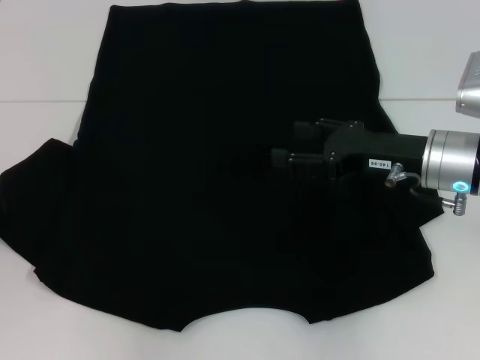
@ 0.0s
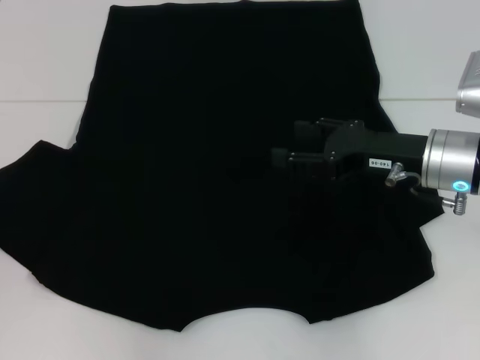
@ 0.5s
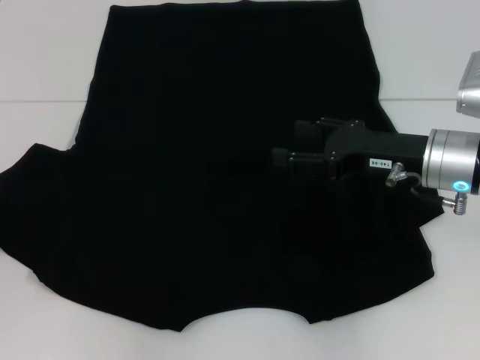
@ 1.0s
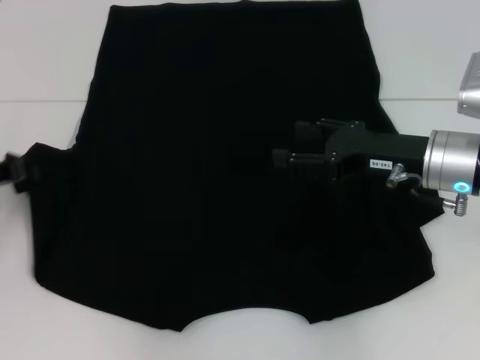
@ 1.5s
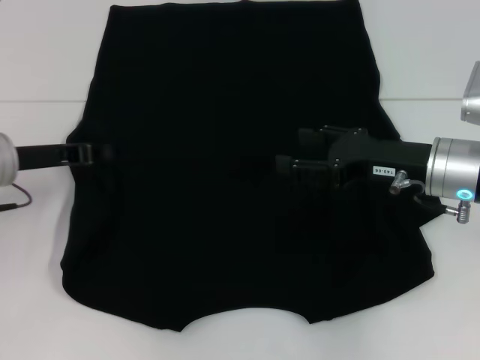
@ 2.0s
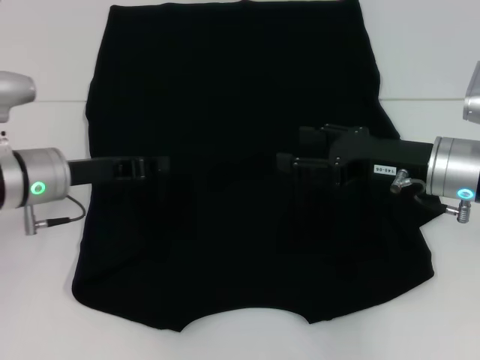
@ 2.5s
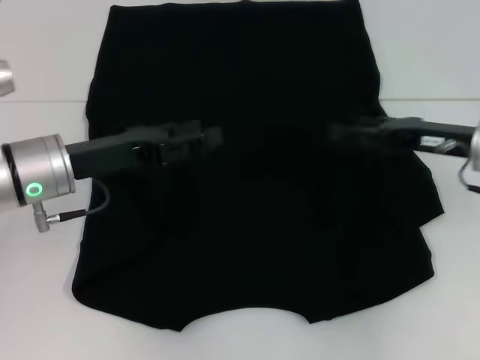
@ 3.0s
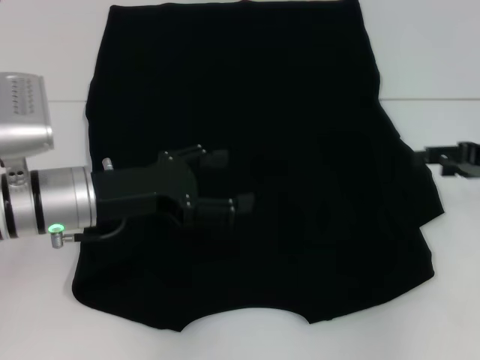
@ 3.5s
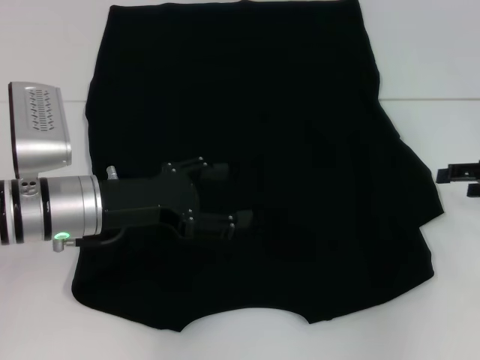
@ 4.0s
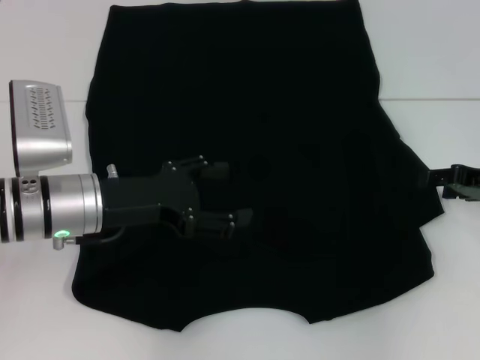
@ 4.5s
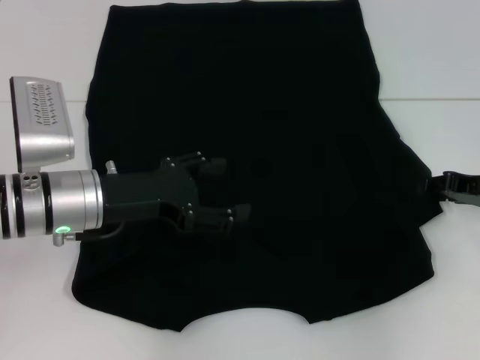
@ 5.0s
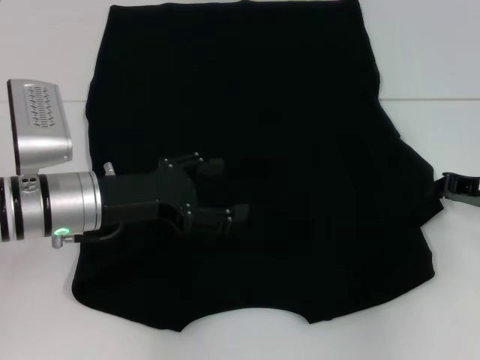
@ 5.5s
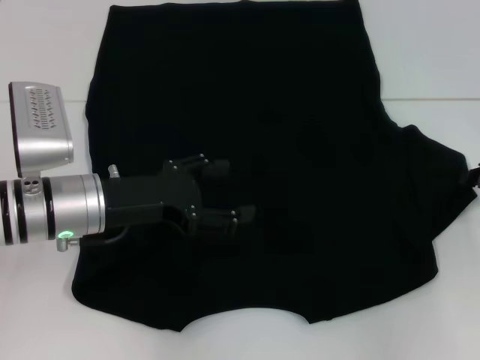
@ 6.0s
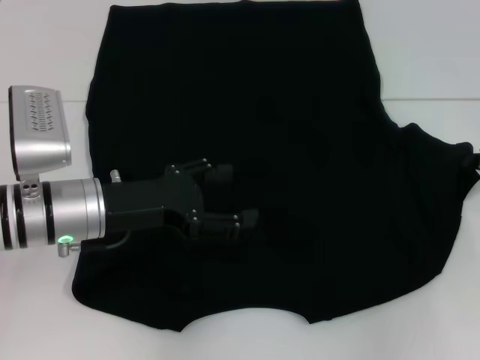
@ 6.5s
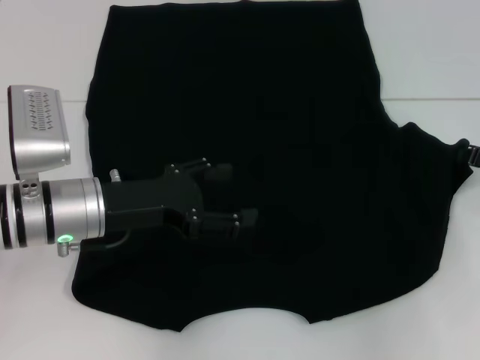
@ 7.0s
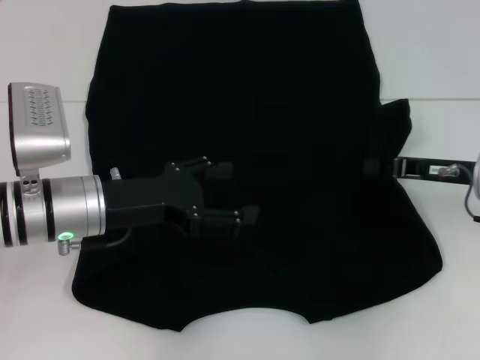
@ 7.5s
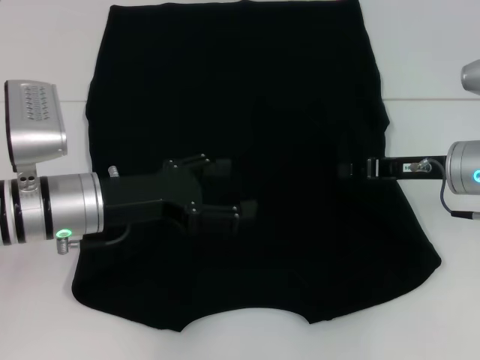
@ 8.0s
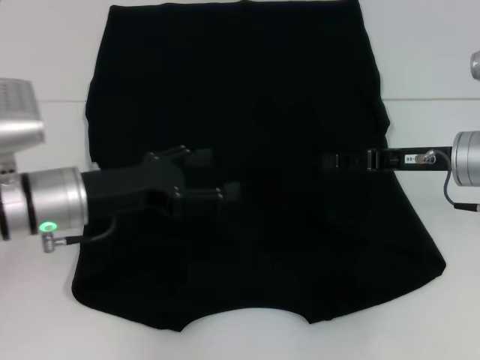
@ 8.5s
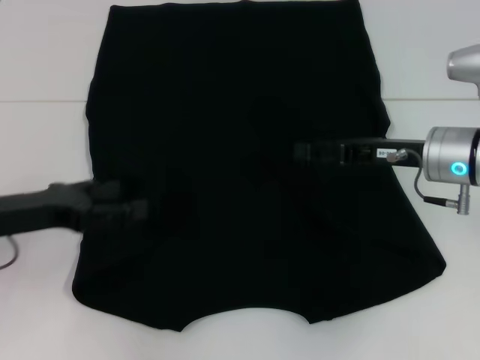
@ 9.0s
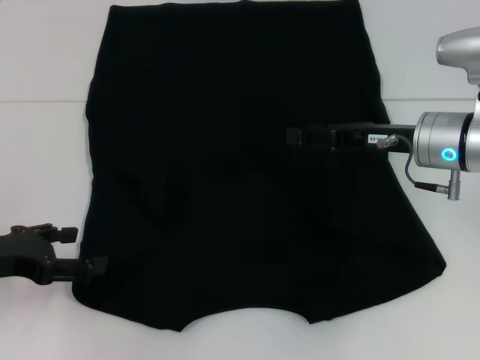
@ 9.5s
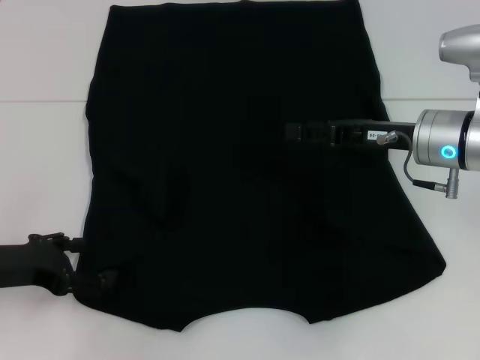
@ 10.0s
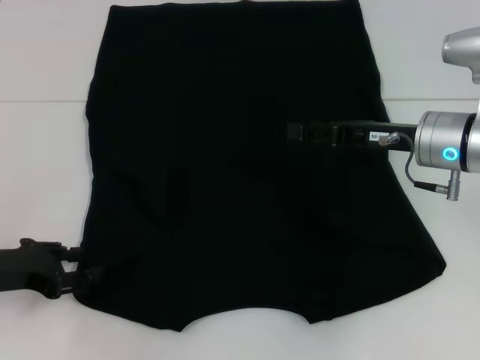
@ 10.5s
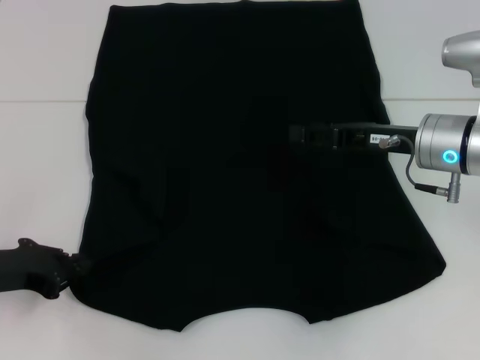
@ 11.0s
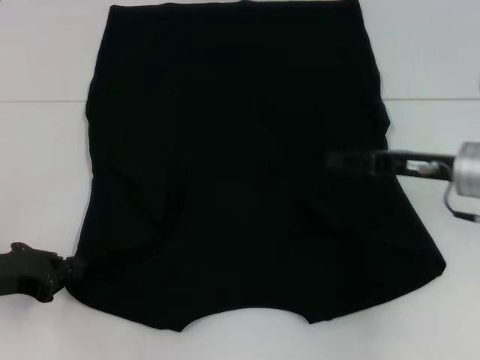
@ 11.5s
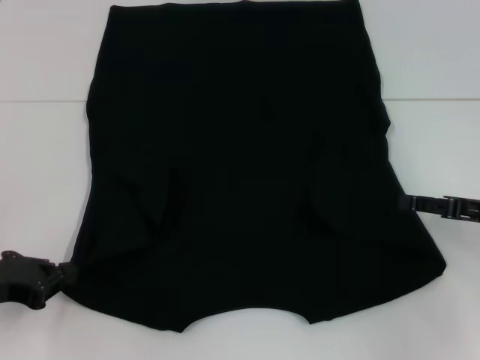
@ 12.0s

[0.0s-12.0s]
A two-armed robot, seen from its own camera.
Step, 0.0s to 2.5s: Fold the bottom left sleeve with your left hand.
Step, 3.0s to 8.5s: Fold the bottom right sleeve with your right hand.
Step, 9.0s to 11.5s: Grab the bottom left corner with your left hand.
0.0s to 2.0s: The left gripper moves to the right, approximately 10 cm.
2.0s to 4.0s: The left gripper is displaced to the right by about 10 cm, and opens. The right gripper moves to the right, some 15 cm.
4.0s to 6.0s: The right gripper closes up.
6.0s to 8.0s: The right gripper heads to the left, covering roughly 10 cm.
8.0s to 10.0s: The left gripper moves to the left, some 10 cm. Meanwhile the right gripper opens.
10.0s to 12.0s: The left gripper closes up. The right gripper shifts roughly 15 cm to the right and backward.

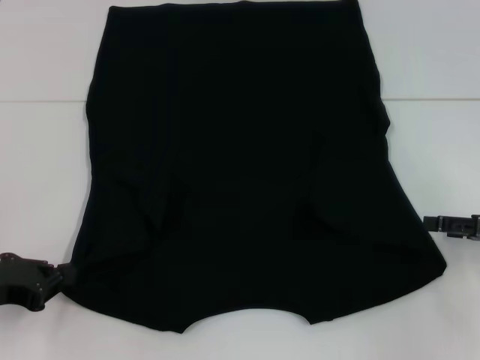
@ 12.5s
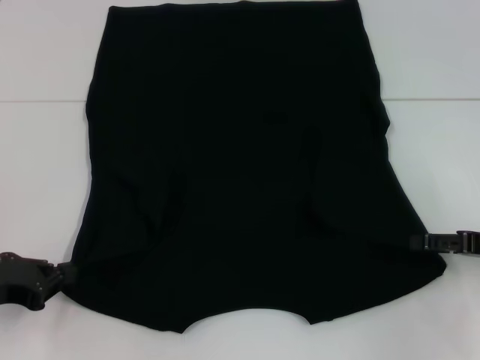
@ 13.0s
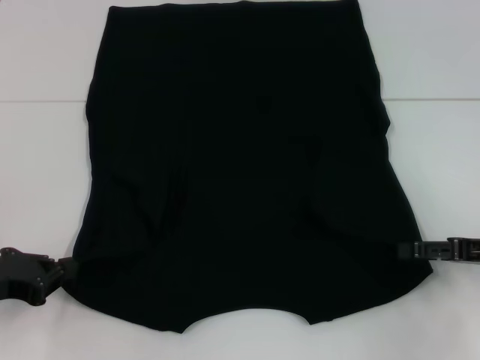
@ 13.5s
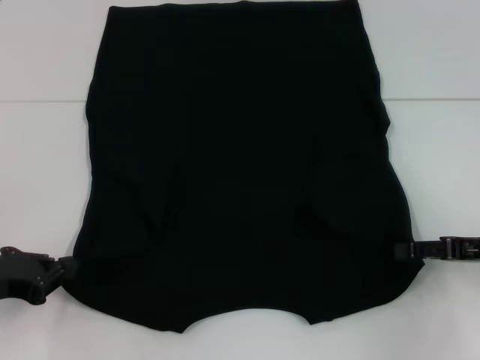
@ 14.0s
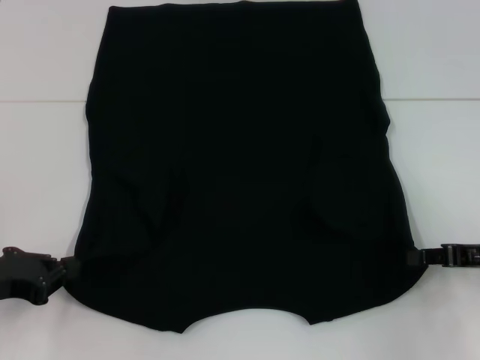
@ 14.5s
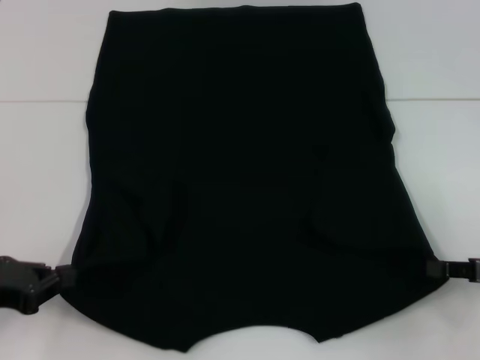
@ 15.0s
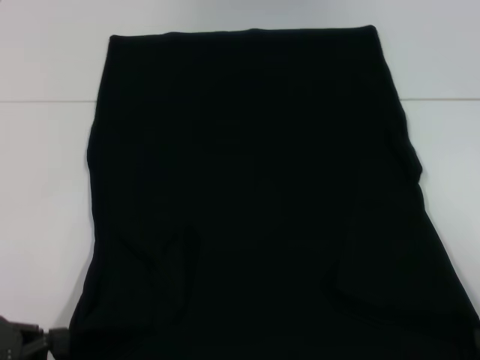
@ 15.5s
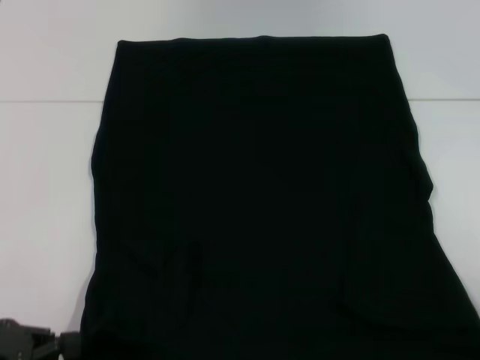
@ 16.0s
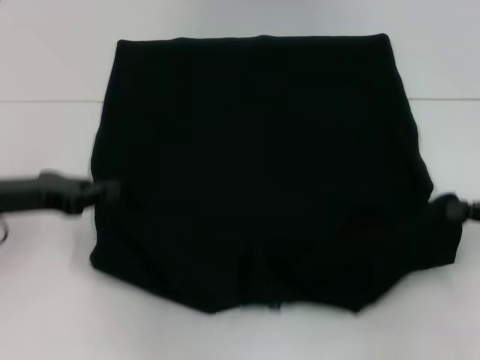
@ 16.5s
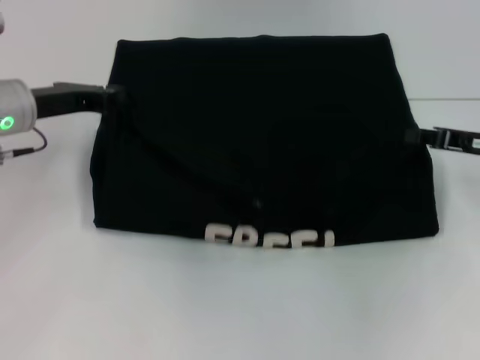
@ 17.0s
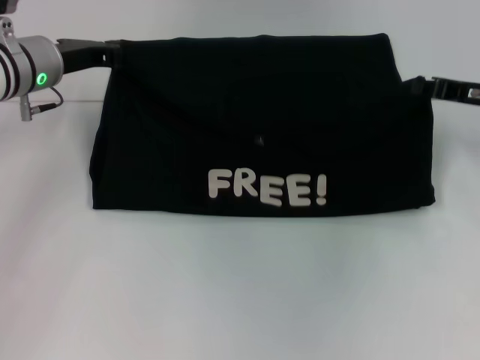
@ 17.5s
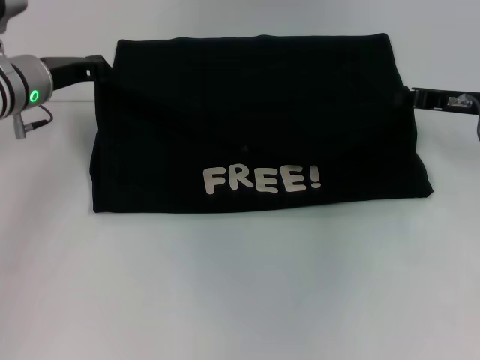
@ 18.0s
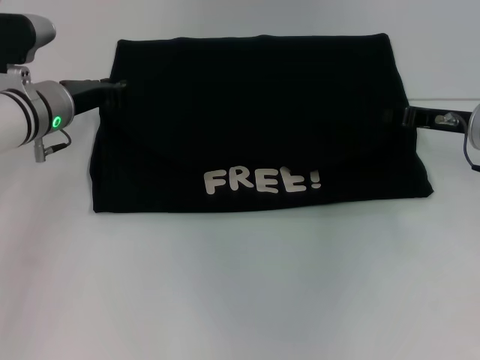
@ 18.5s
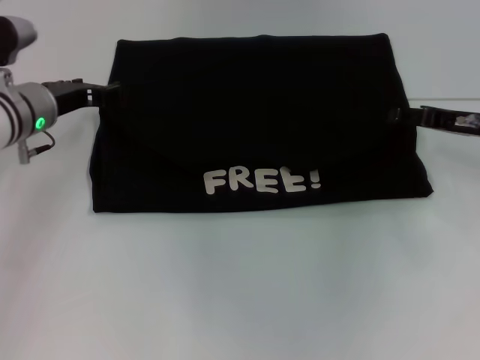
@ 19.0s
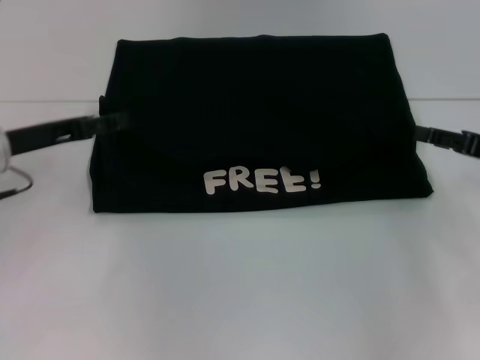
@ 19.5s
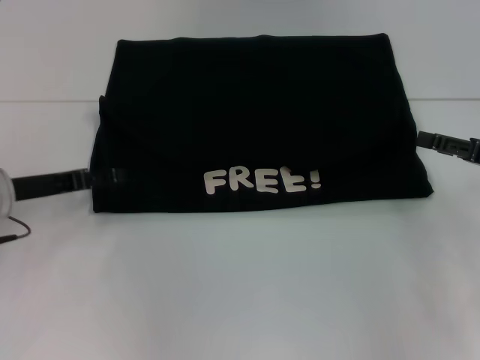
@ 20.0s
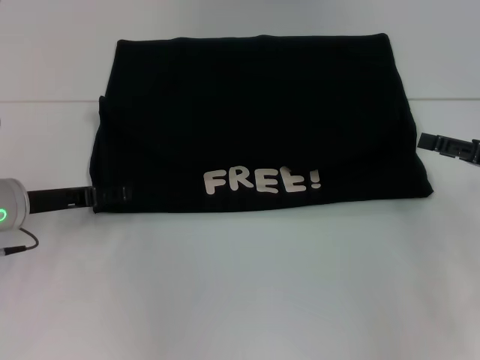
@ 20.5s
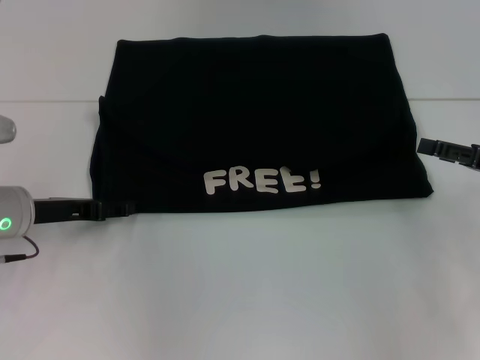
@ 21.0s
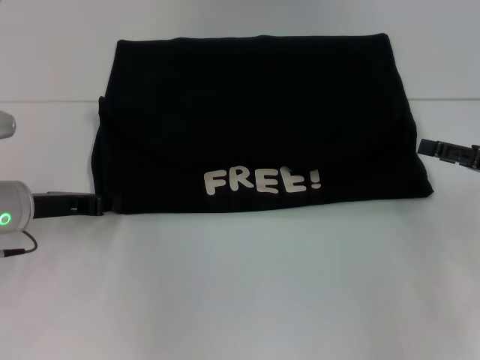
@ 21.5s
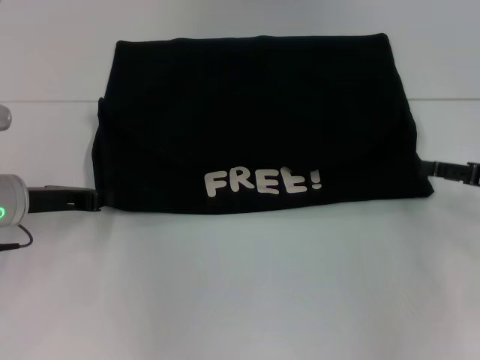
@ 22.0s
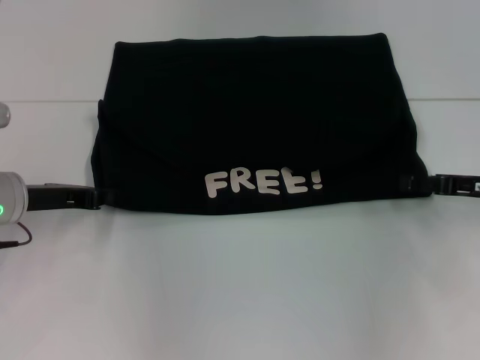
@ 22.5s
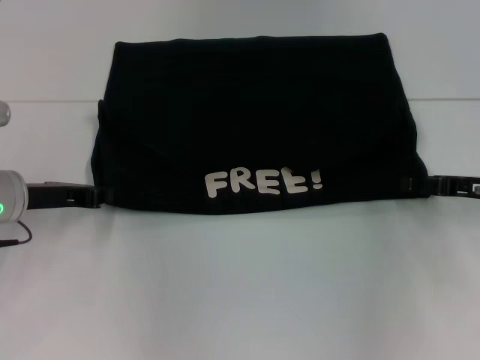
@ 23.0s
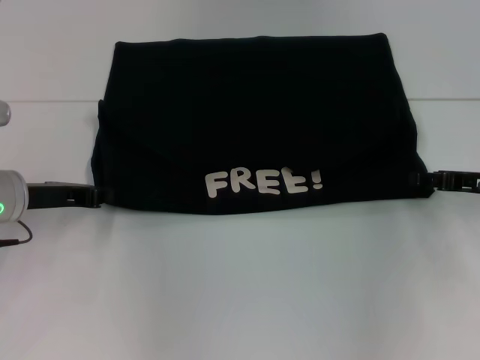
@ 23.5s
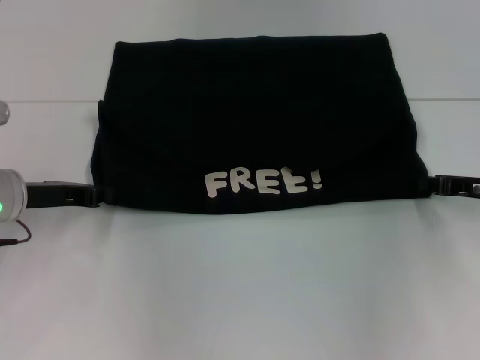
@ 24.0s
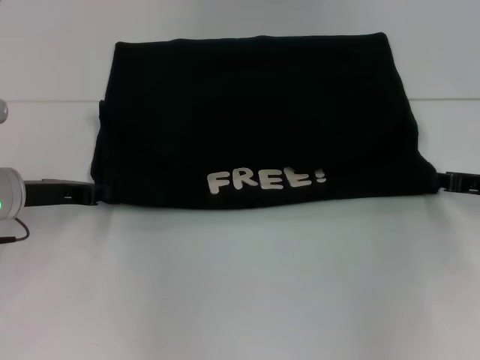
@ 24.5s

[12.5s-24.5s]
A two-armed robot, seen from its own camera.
Step, 12.5s to 15.0s: Grab the bottom right corner with your right hand.
Step, 15.5s to 18.5s: Fold the clothes with your left hand.
Step, 15.5s to 18.5s: Fold the clothes with your right hand.
12.5s to 14.5s: The right gripper closes.
14.5s to 16.5s: The right gripper goes backward and returns, approximately 10 cm each way. Meanwhile the left gripper travels forward and upward by about 10 cm.
16.5s to 18.5s: The left gripper heads forward and to the right, covering some 15 cm. Meanwhile the right gripper moves forward and to the left, roughly 15 cm.
18.5s to 20.5s: The left gripper goes roughly 10 cm backward, and opens. The right gripper is displaced backward and to the right by roughly 10 cm, and opens its fingers.
20.5s to 22.5s: The left gripper closes its fingers.
22.5s to 24.5s: The right gripper closes.

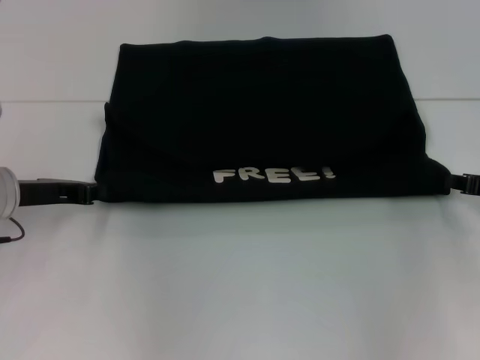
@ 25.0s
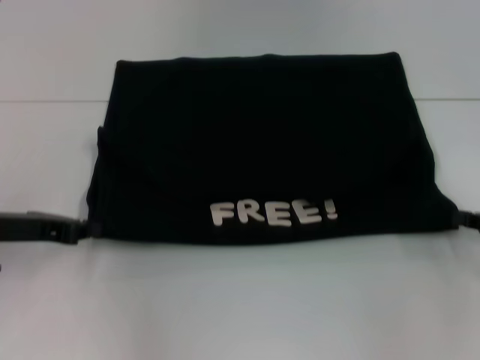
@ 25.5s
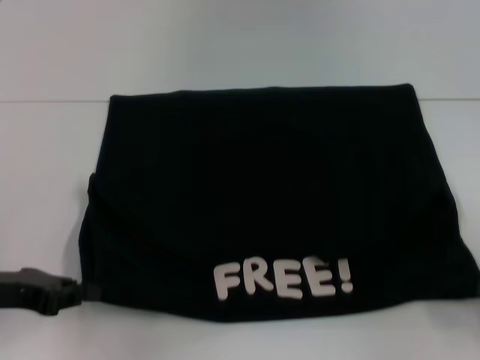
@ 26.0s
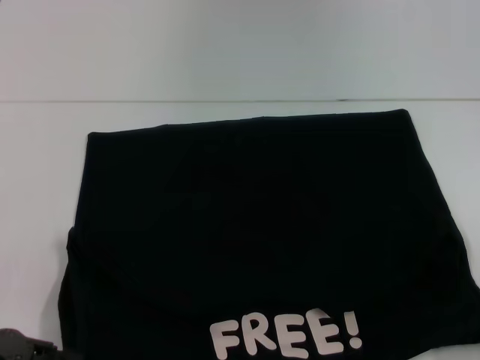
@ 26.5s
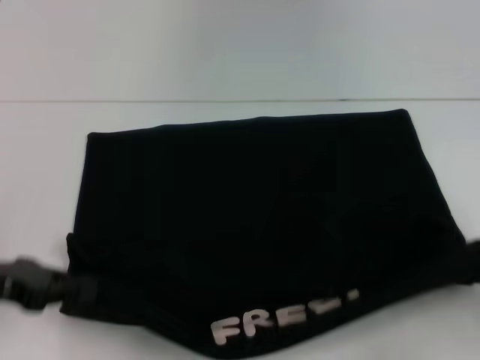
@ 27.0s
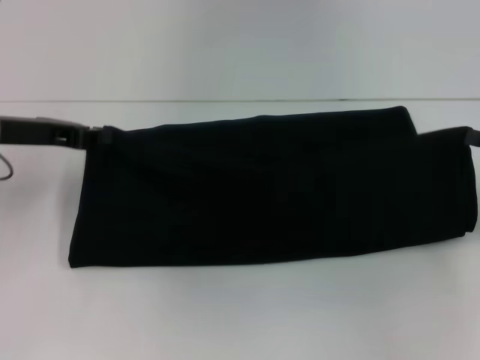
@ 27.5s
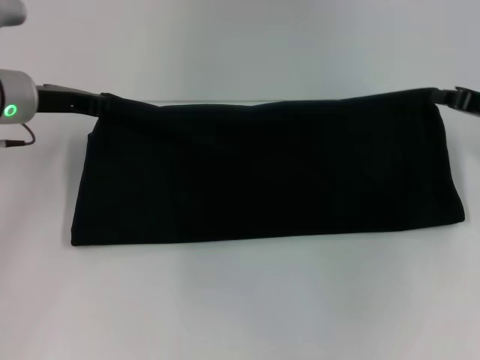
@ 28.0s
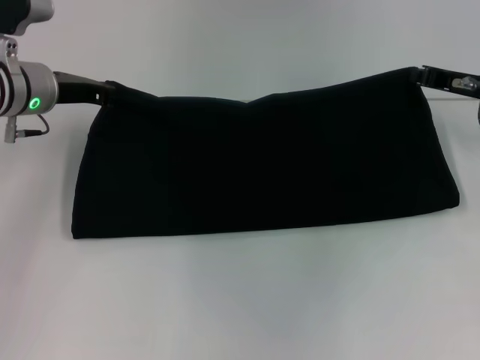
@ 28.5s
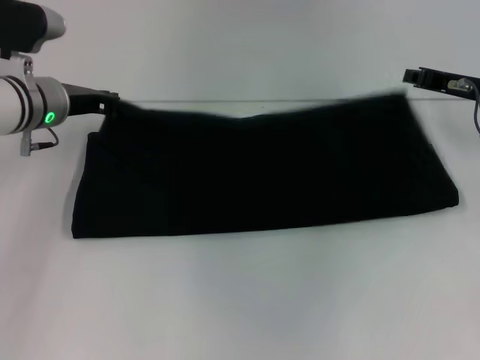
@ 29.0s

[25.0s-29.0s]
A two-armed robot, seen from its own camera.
25.0s to 27.0s: The two grippers go roughly 10 cm backward.
27.0s to 29.0s: The left gripper is displaced forward and to the right by about 20 cm, while the right gripper is displaced forward and to the left by about 25 cm.
